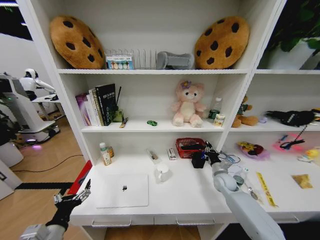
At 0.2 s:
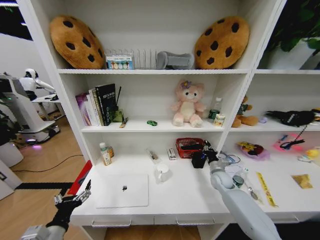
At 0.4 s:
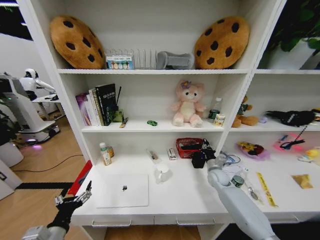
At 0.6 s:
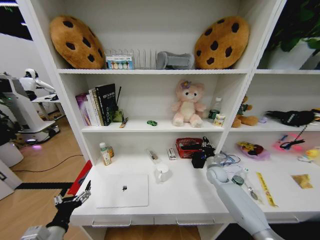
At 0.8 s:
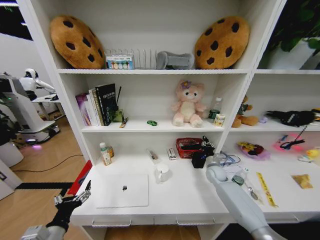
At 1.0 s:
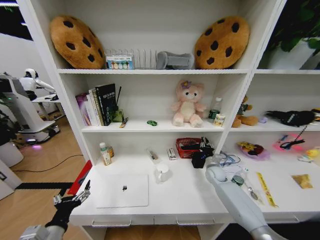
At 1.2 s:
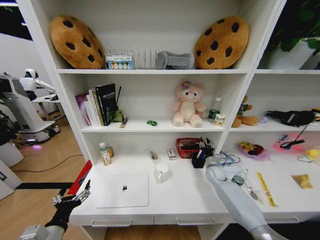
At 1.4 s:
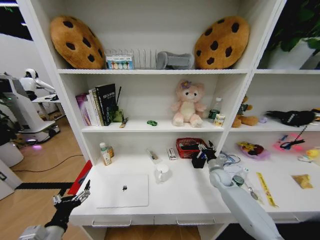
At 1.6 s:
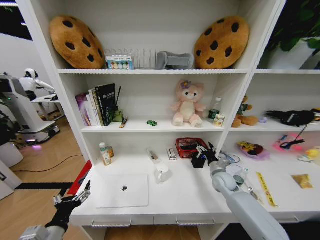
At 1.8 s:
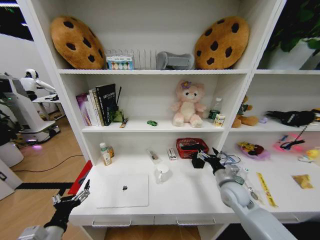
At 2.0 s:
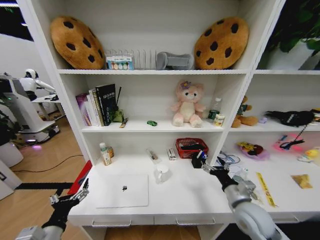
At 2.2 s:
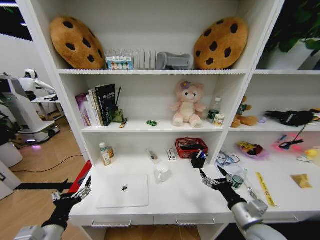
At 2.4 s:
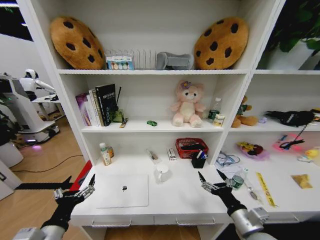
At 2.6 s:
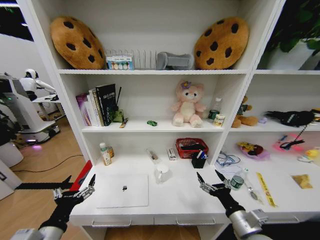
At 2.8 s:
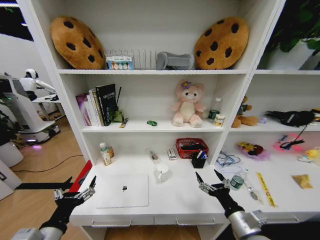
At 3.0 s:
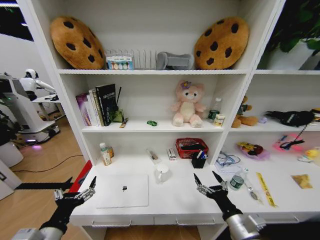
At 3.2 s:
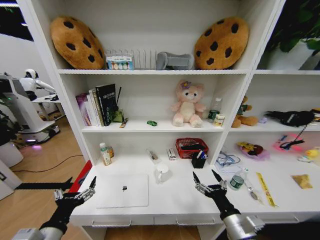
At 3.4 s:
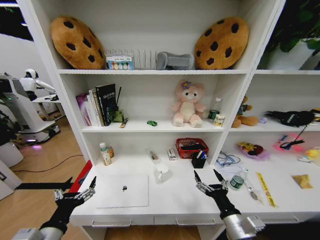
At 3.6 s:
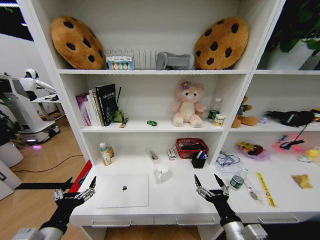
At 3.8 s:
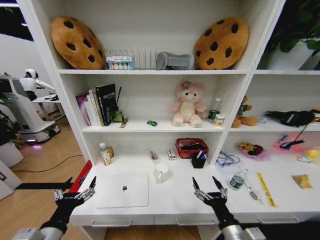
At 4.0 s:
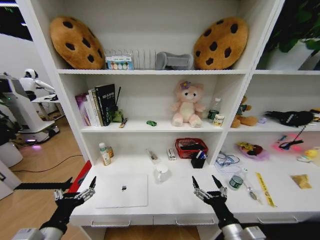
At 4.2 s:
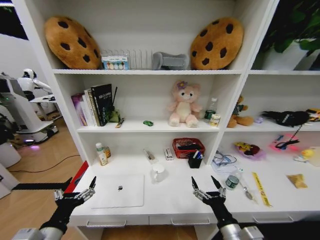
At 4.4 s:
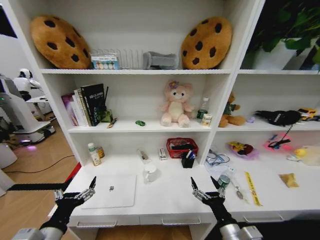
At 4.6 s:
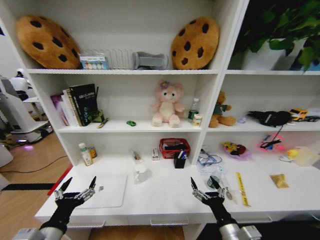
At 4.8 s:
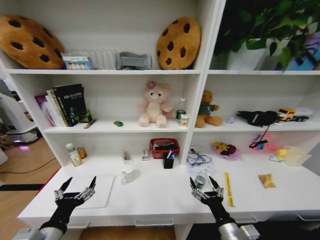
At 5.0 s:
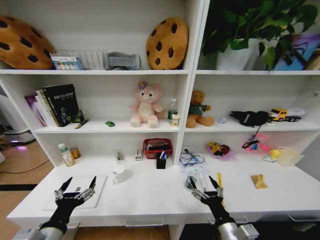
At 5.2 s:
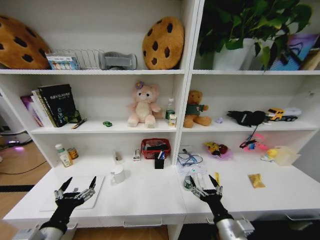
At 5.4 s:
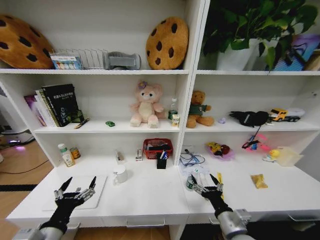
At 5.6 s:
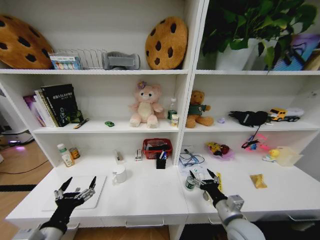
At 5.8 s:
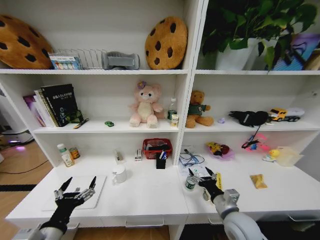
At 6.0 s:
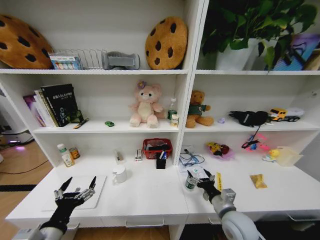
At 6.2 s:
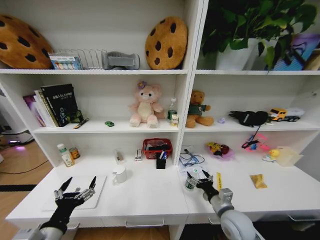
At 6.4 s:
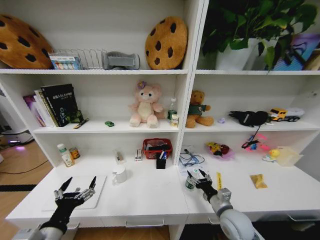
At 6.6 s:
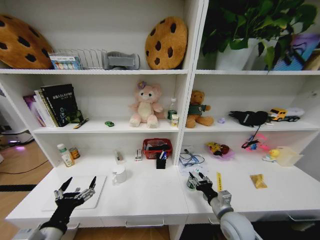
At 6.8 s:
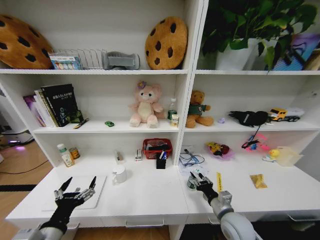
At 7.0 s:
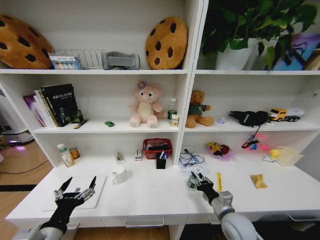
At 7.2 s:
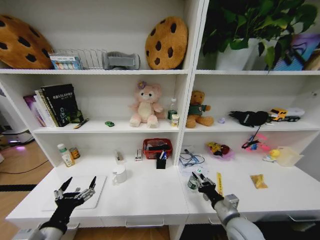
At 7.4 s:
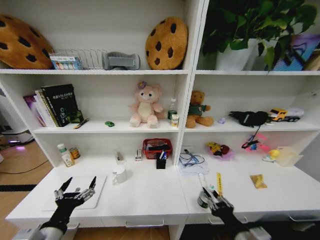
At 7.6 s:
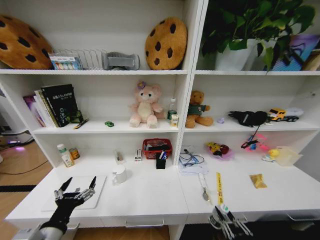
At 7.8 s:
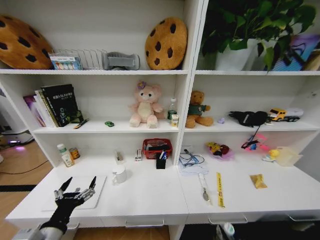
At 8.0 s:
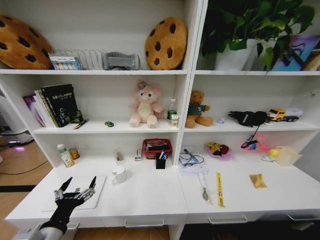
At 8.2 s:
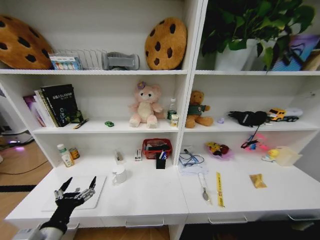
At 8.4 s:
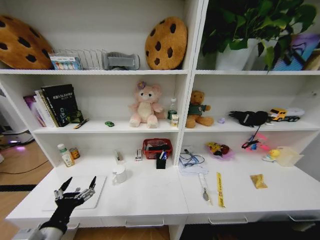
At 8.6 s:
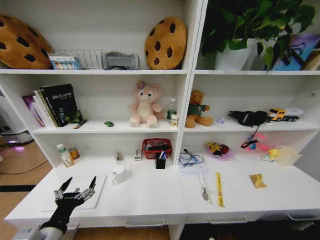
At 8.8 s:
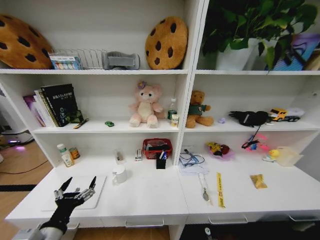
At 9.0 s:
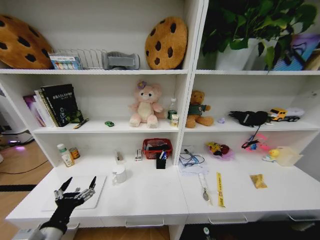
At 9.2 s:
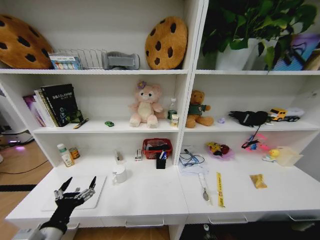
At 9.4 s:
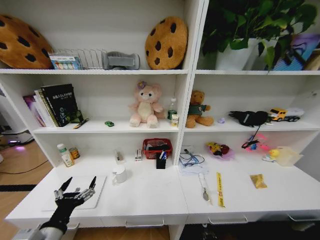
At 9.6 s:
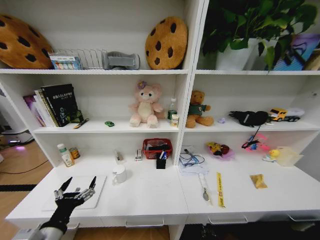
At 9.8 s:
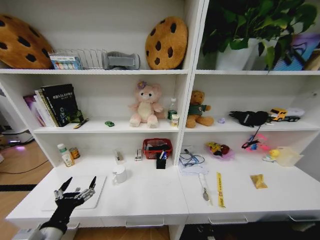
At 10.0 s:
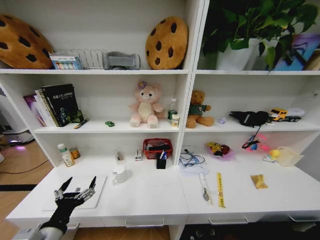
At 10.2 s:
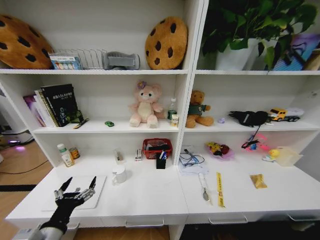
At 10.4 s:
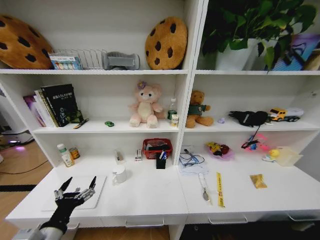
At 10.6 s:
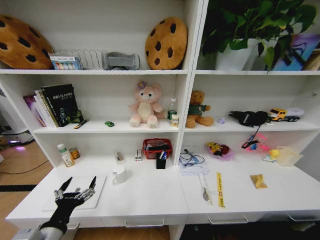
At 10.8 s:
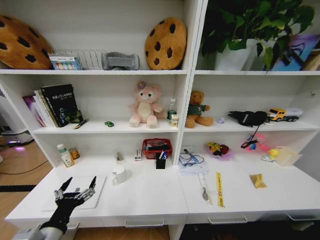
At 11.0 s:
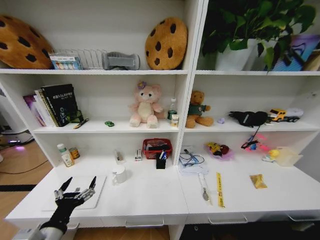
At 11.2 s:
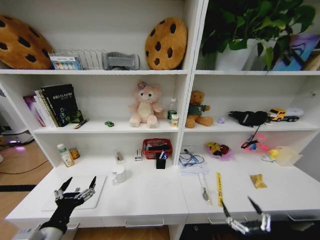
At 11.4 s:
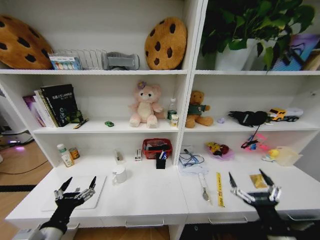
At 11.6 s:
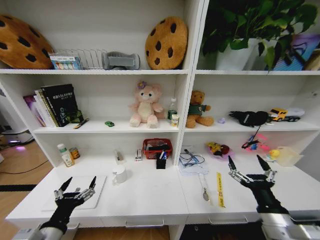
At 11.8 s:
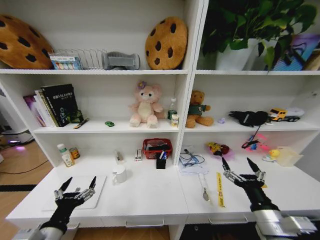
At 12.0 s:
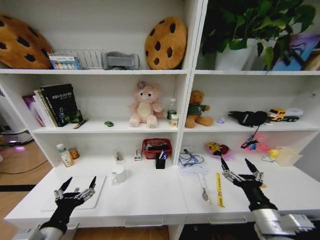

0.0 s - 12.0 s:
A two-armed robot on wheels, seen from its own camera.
Task of the whole recording: Organize the objects on the table.
0.0 s - 1.6 s: The right gripper shifts by roughly 5 cm, and opens its fingers.
1.6 s - 3.0 s: The left gripper changes place by roughly 5 cm; the right gripper travels backward by some 25 cm.
4.4 s - 6.0 s: The right gripper heads forward, covering approximately 10 cm.
6.0 s - 7.6 s: The right gripper is displaced backward by about 15 cm, and closes its fingers.
7.6 s - 9.0 s: The right gripper shifts about 40 cm downward.
10.4 s - 12.0 s: The right gripper moves upward, about 40 cm.

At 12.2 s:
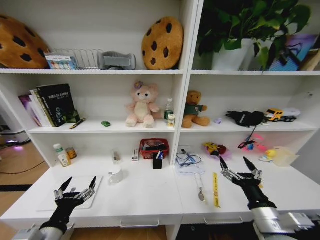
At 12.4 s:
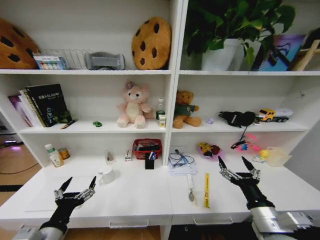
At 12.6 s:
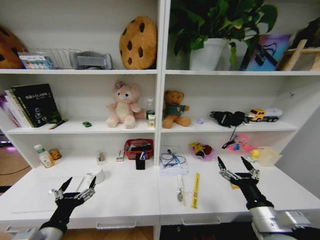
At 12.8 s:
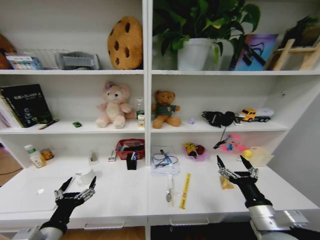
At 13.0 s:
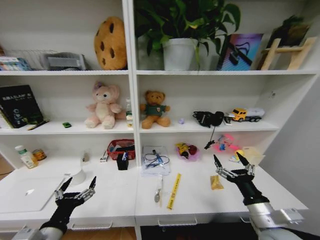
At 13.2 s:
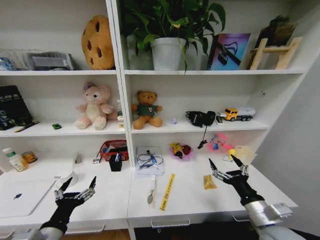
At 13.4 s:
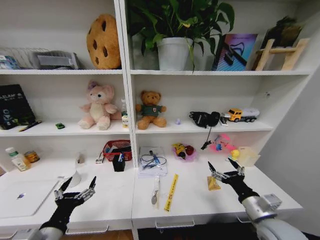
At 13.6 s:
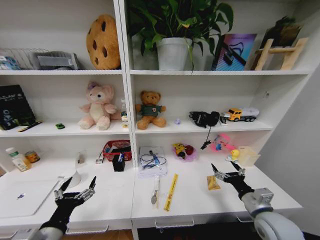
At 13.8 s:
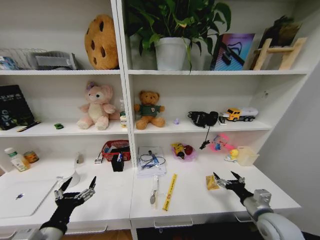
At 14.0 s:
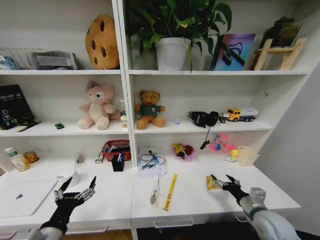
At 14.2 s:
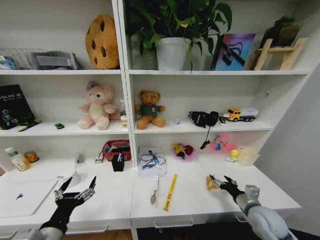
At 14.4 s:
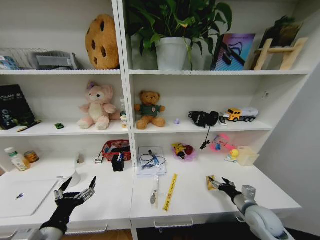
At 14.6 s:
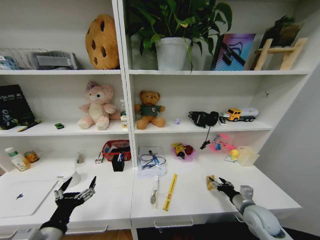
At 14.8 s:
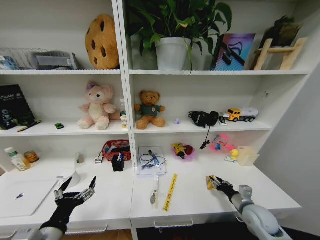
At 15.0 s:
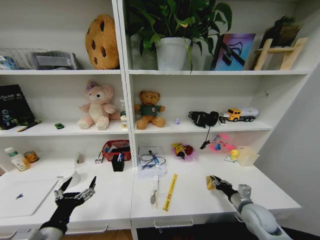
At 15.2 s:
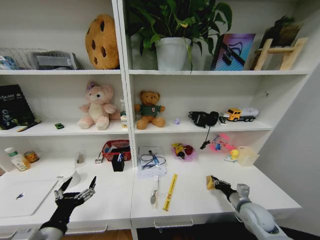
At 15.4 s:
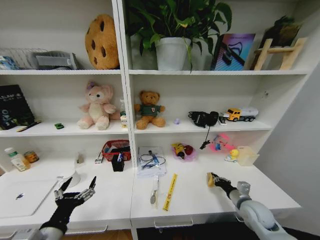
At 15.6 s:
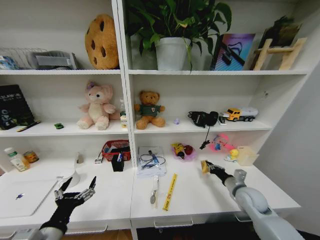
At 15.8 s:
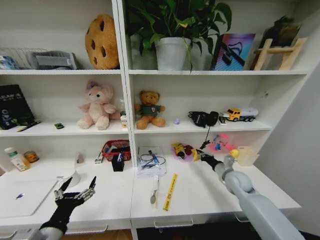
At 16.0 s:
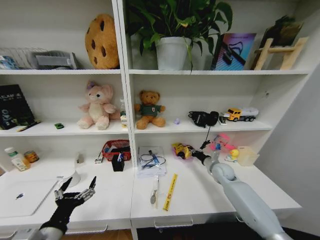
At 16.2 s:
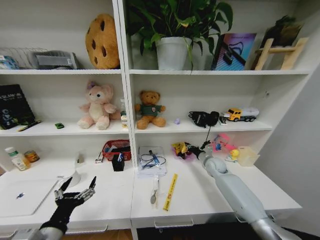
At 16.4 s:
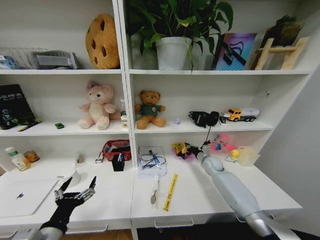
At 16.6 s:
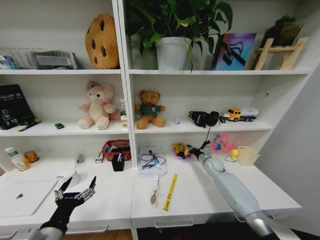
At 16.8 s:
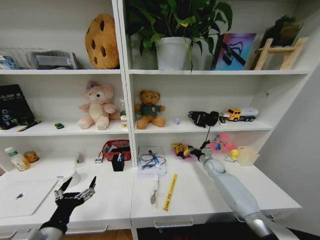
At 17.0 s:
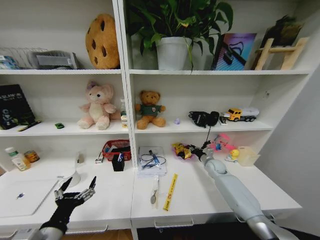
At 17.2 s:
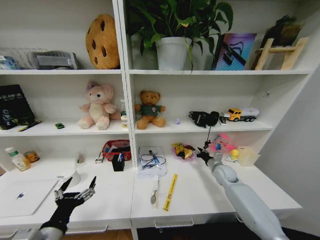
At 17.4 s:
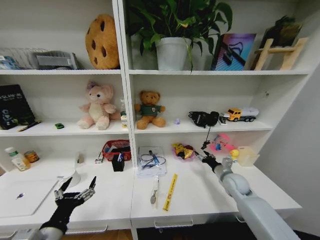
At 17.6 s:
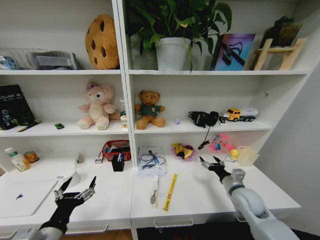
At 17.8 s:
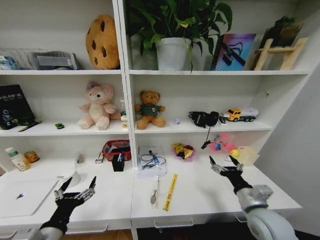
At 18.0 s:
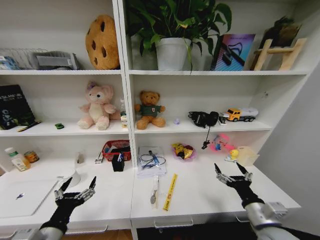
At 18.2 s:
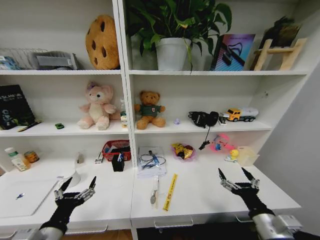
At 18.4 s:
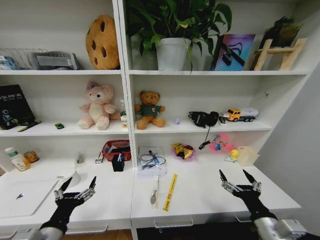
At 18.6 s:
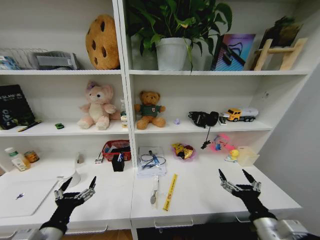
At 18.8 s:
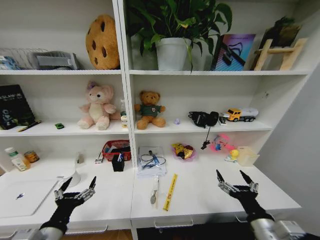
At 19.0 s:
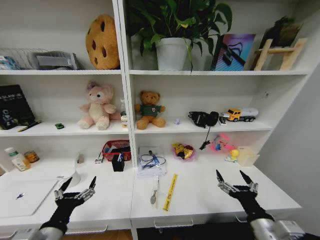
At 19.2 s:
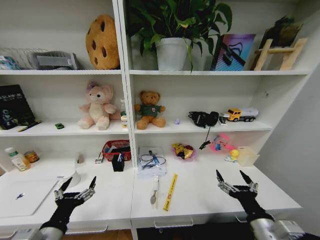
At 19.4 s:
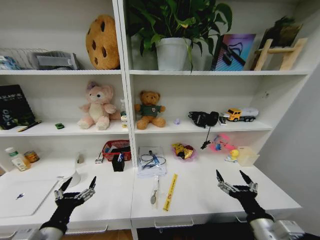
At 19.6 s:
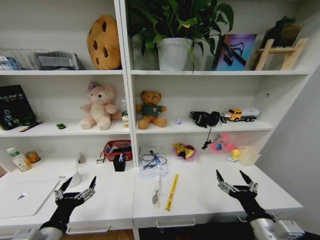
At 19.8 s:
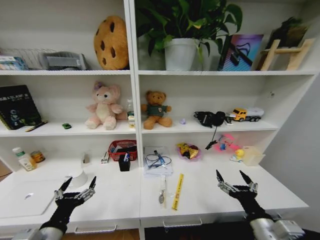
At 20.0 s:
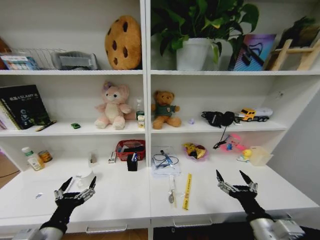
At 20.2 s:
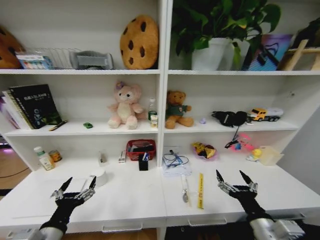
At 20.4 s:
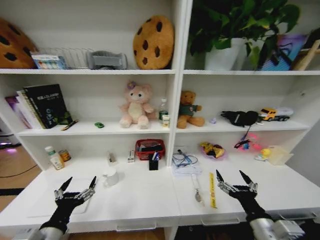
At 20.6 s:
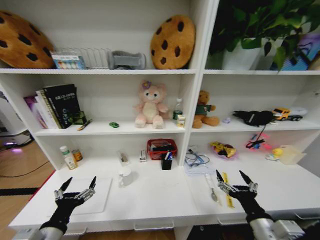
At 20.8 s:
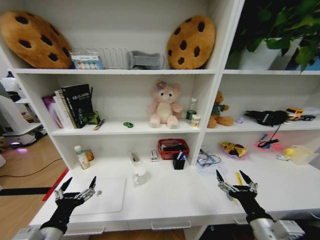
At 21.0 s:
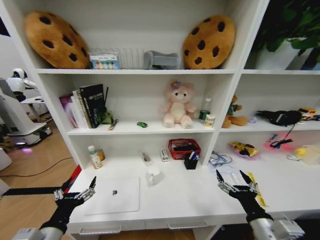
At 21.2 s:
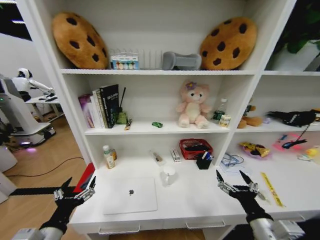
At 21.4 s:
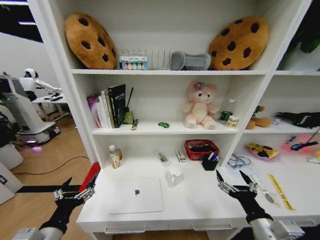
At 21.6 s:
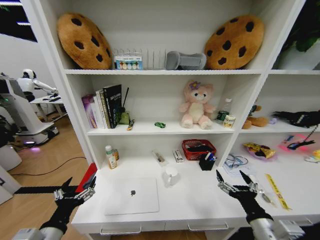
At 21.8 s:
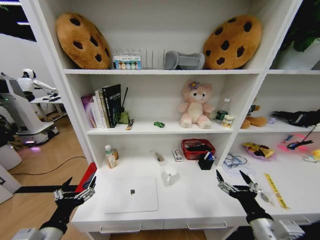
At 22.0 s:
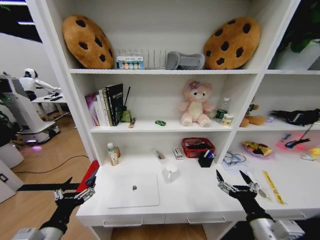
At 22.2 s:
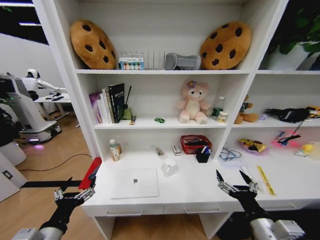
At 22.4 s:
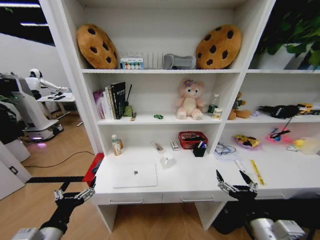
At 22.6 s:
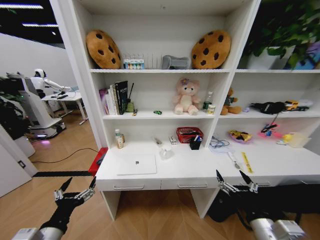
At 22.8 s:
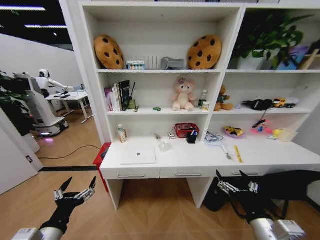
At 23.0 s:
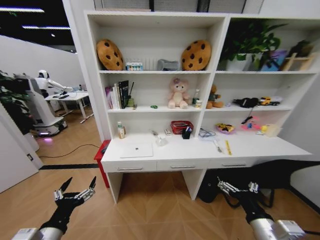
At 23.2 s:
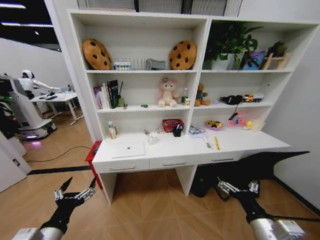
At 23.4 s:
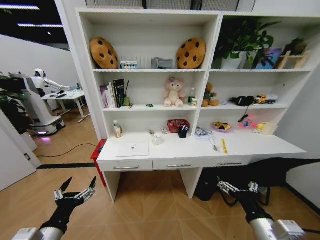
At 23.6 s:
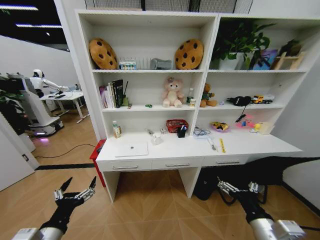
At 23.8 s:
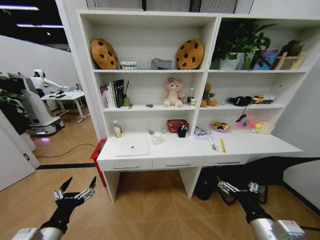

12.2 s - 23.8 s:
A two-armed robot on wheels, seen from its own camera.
Task of the whole recording: Organize the objects on the table.
12.2 s - 13.6 s: The right gripper is displaced forward and to the right by approximately 10 cm.
13.6 s - 15.0 s: The right gripper heads downward and forward, covering roughly 10 cm, and closes.
15.0 s - 16.6 s: The right gripper is displaced forward by about 25 cm.
16.6 s - 18.0 s: The right gripper shifts about 35 cm backward, and opens its fingers.
18.0 s - 19.4 s: The right gripper is displaced backward by roughly 5 cm.
